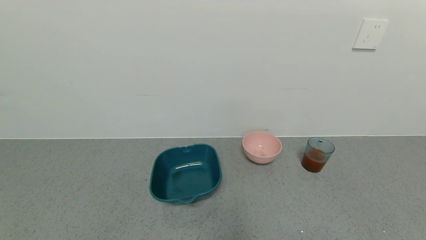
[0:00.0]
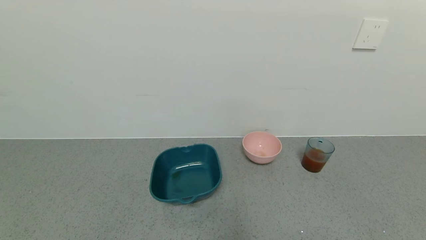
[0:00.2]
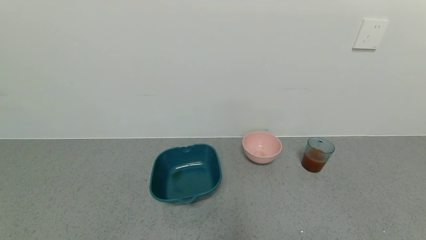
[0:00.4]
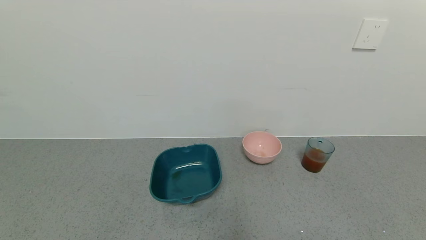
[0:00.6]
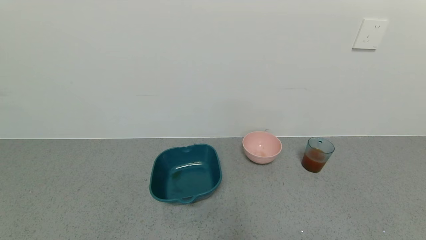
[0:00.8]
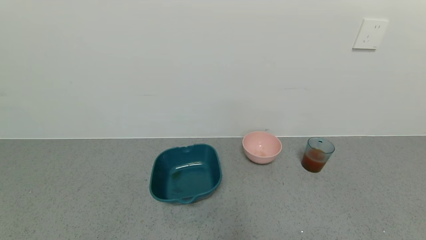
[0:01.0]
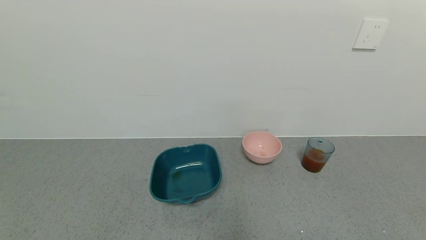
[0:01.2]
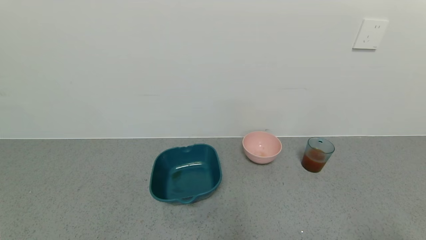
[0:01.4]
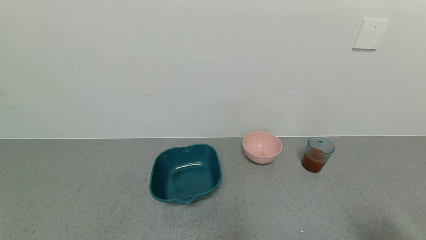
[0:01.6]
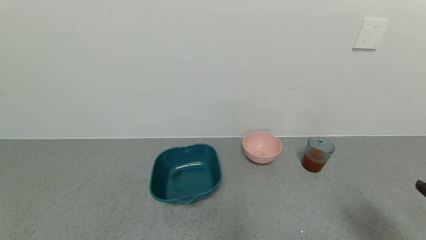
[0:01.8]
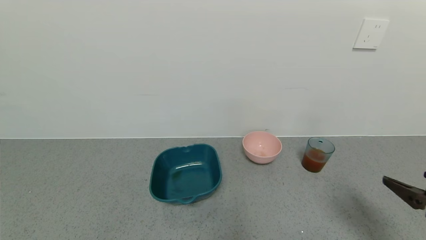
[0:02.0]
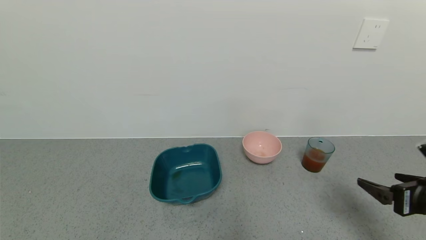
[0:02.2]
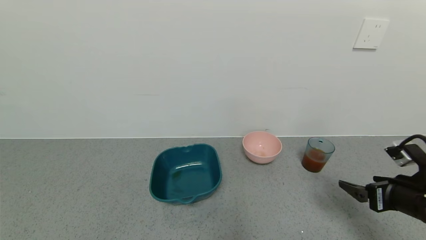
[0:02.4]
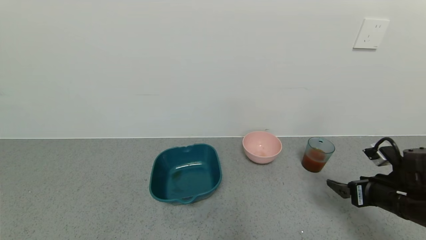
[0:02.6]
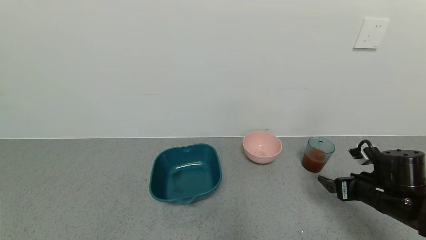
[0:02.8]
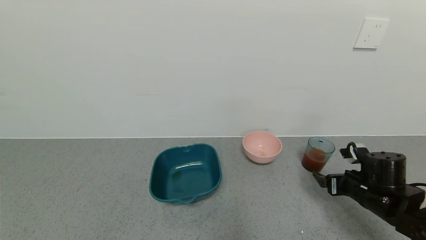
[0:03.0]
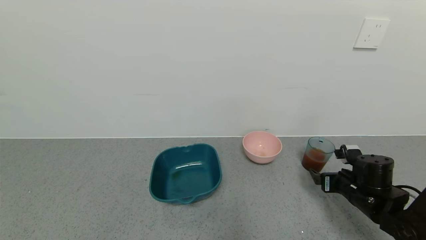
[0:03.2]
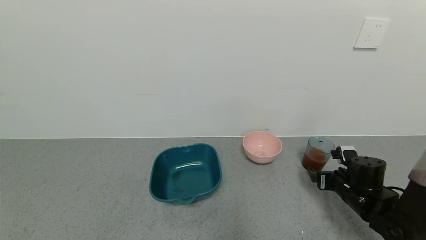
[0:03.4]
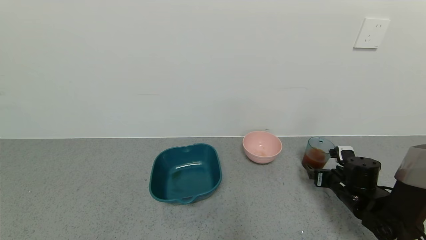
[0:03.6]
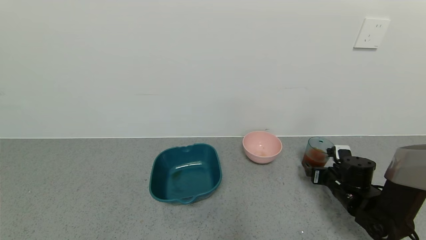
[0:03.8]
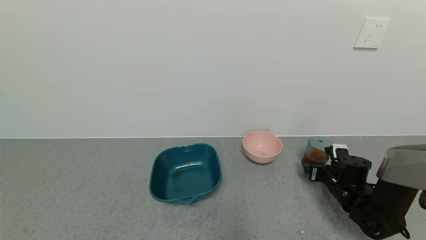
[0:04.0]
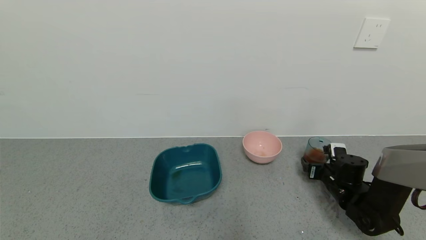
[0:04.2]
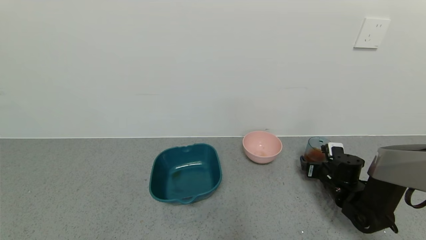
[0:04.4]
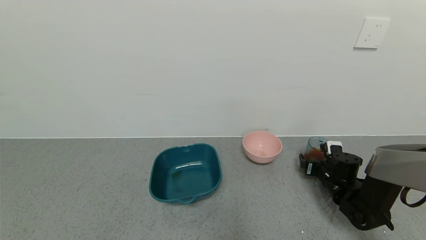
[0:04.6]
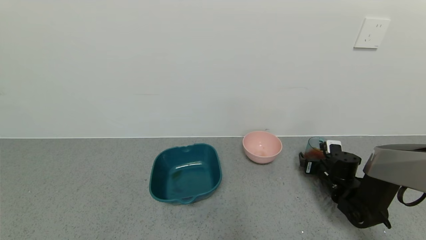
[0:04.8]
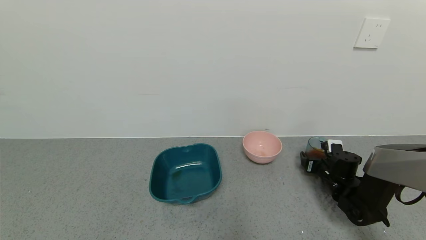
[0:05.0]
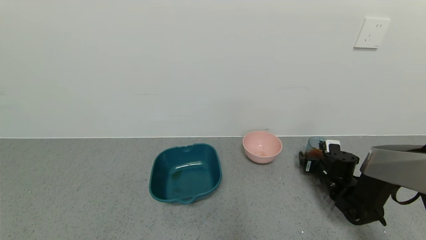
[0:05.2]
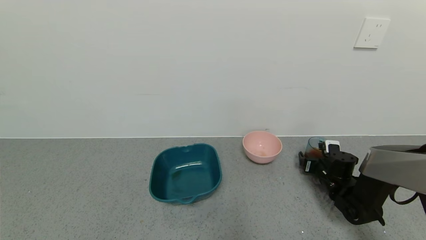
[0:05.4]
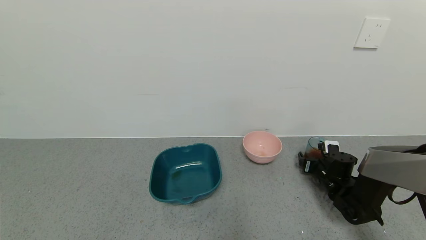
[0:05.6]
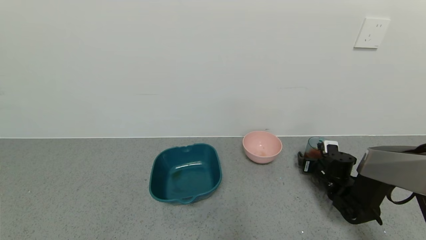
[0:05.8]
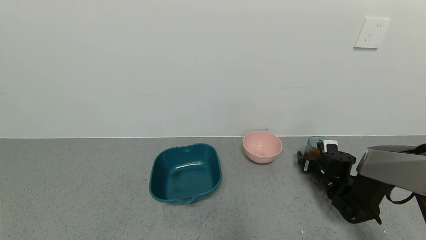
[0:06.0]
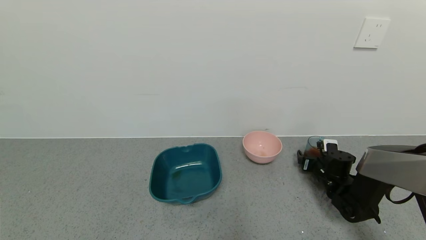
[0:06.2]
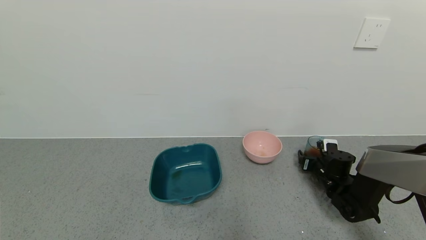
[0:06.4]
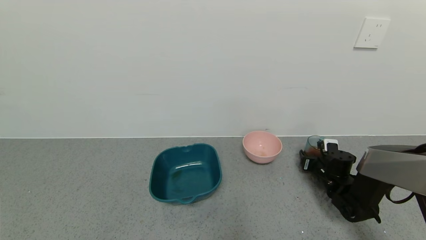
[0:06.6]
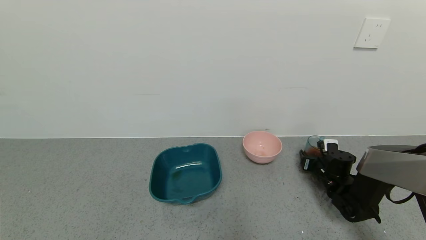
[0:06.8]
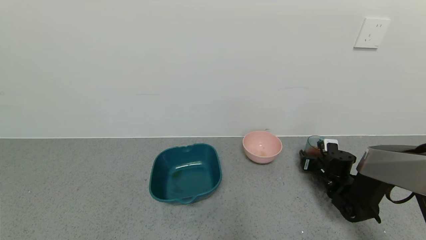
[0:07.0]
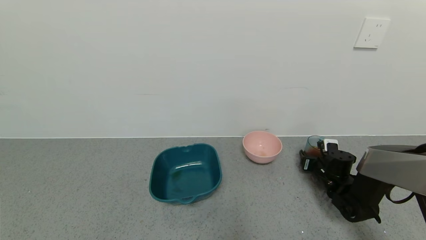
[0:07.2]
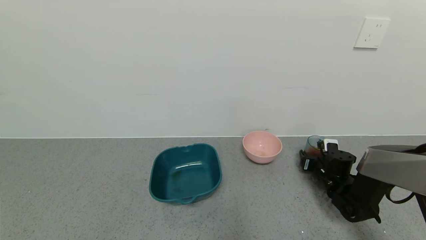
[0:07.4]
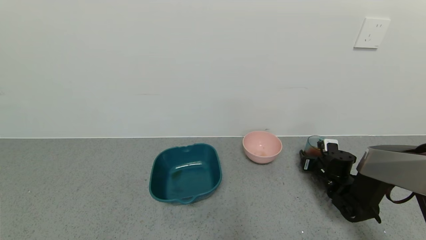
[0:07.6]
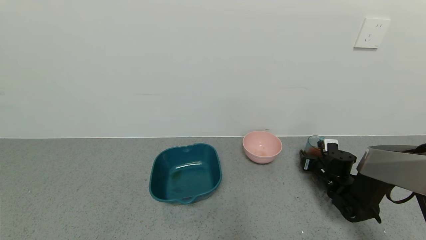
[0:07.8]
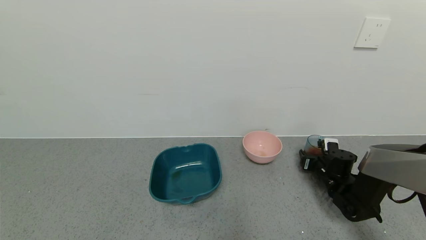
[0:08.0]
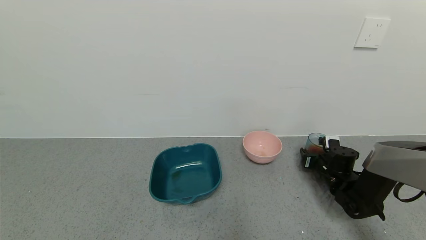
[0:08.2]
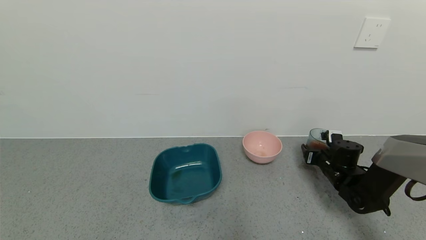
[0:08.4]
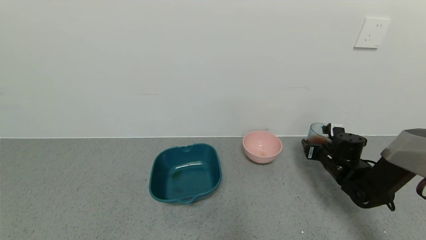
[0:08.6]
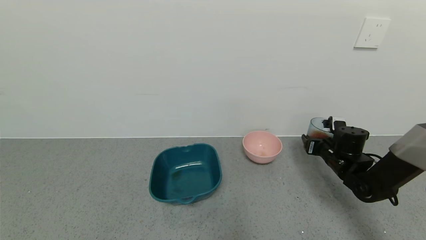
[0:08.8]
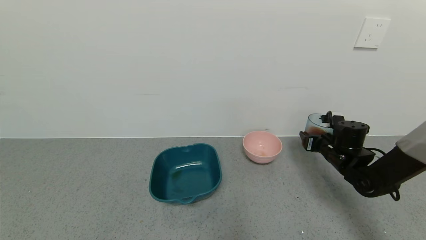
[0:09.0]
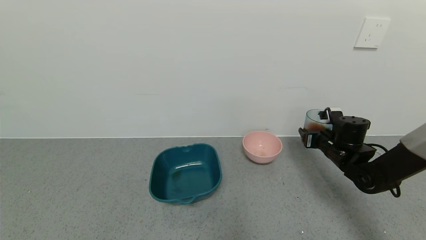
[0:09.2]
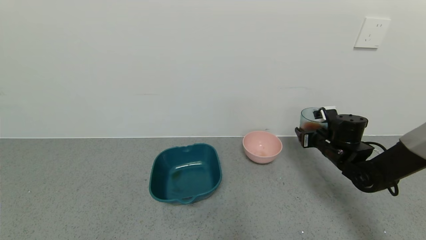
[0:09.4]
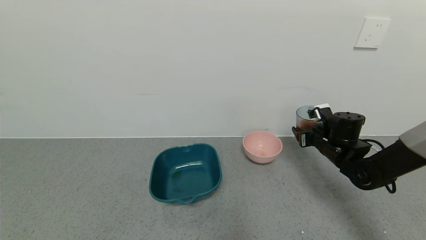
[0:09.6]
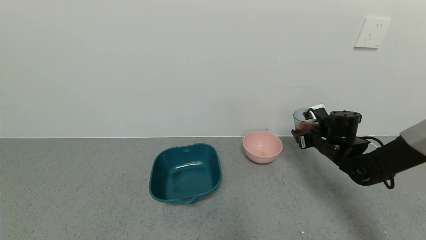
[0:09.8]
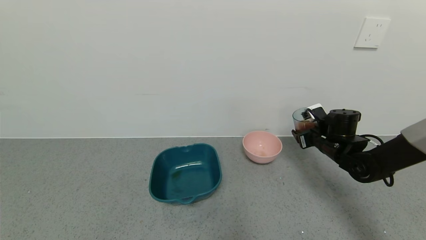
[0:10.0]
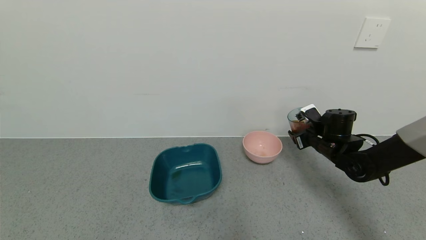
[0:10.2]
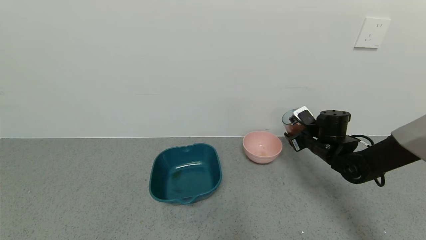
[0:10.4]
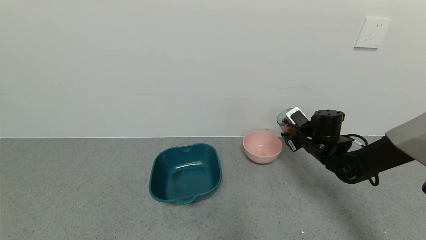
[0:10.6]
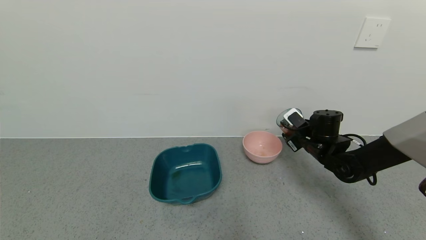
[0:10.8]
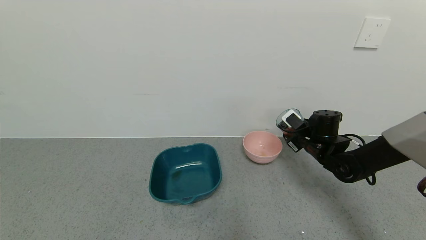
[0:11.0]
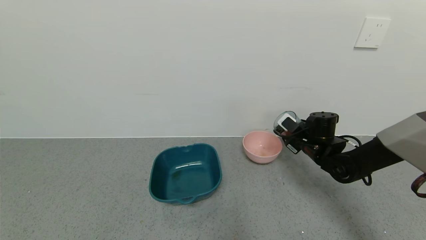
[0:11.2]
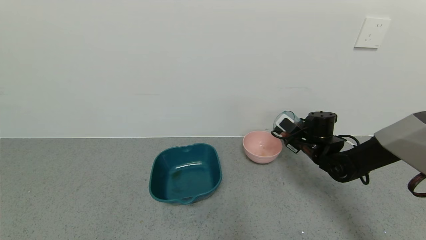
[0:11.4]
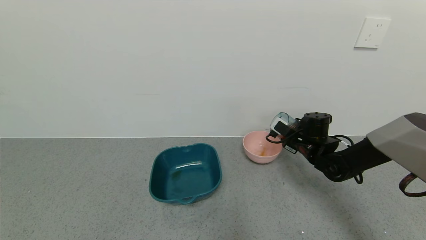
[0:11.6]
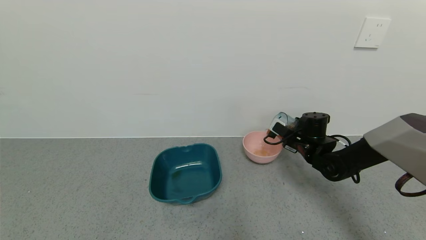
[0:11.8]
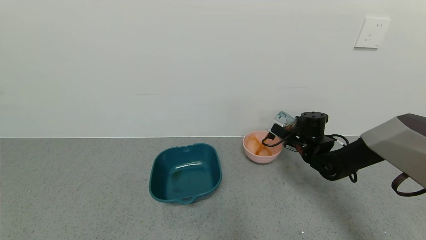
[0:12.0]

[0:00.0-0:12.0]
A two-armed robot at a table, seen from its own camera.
Task of the whole recording: use a gripper to pick up the cup and pour the liquid into a bowl or tray.
Step, 0:05.6 to 0:10.2: Pick up blue cup filled with tea with right gripper.
0:01.6 to 0:03.0: The right gripper heads forward and downward, covering roughly 25 cm.
0:03.0 to 0:04.4: The right gripper travels forward and downward by some 10 cm.
0:04.4 to 0:06.0: The grippers stay close to where they were, moving slightly.
0:07.6 to 0:09.0: The right gripper moves upward, about 10 cm.
0:09.0 to 0:10.4: The right gripper shifts by approximately 5 cm.

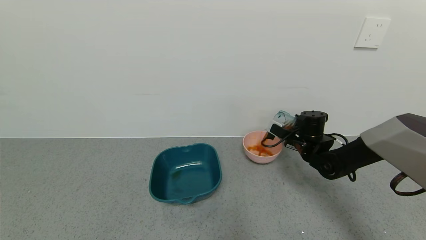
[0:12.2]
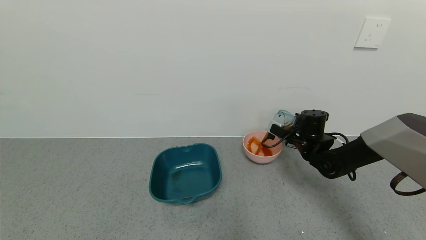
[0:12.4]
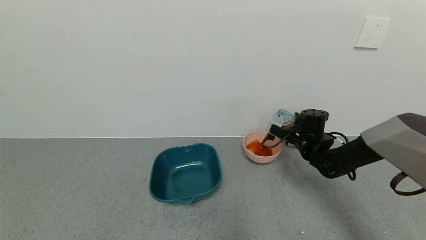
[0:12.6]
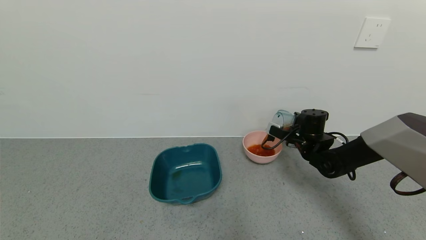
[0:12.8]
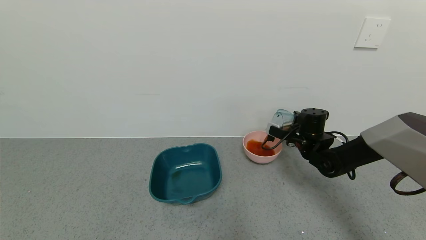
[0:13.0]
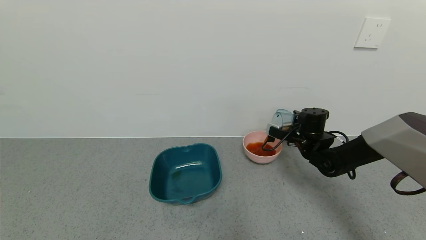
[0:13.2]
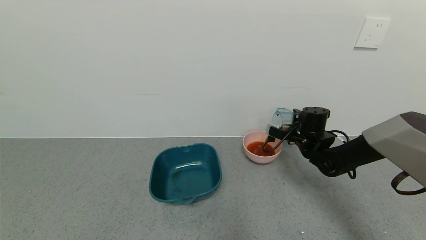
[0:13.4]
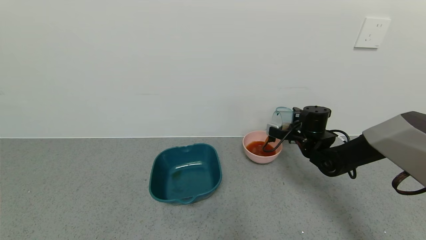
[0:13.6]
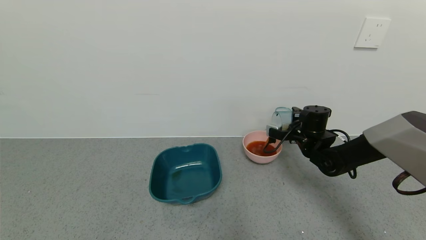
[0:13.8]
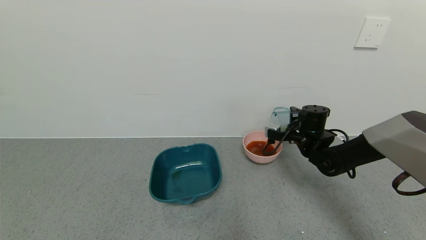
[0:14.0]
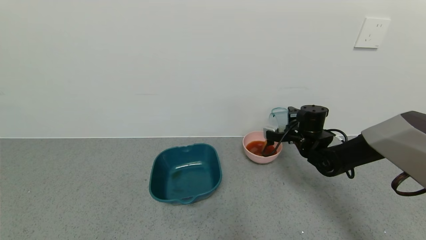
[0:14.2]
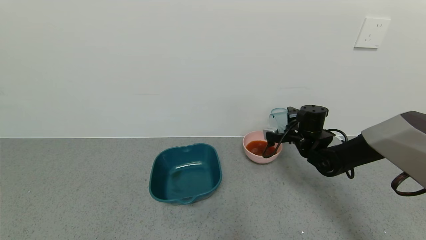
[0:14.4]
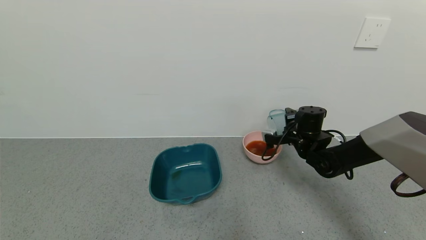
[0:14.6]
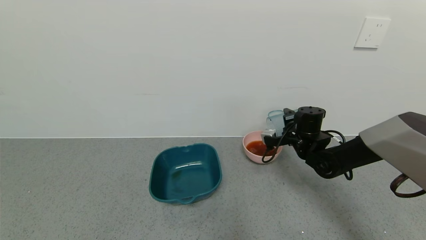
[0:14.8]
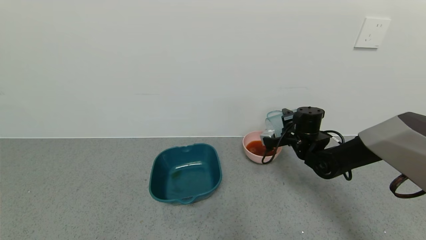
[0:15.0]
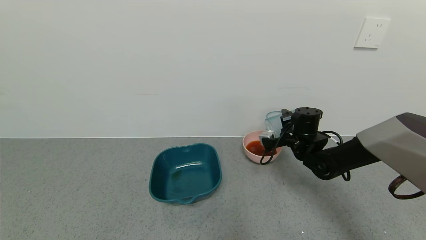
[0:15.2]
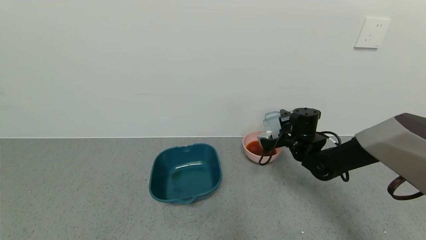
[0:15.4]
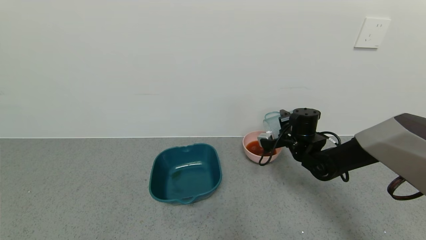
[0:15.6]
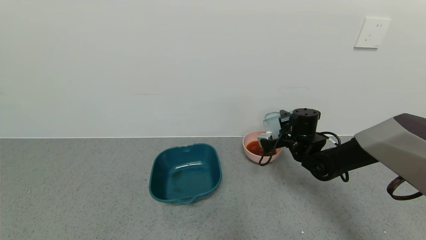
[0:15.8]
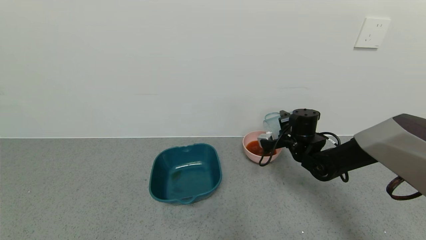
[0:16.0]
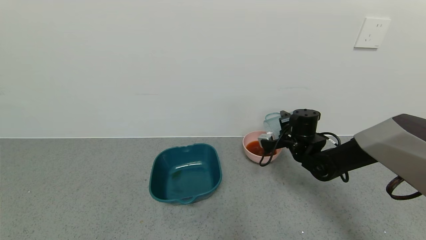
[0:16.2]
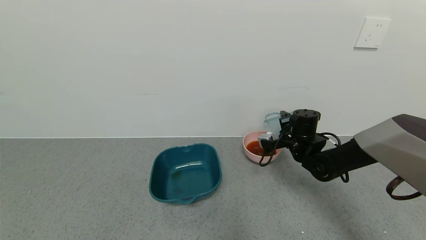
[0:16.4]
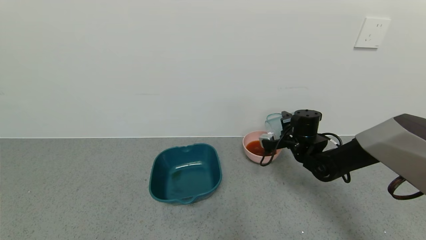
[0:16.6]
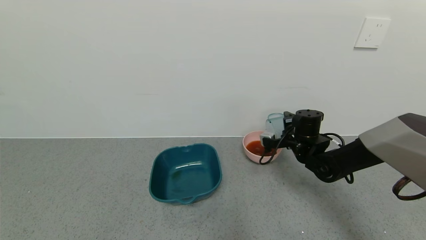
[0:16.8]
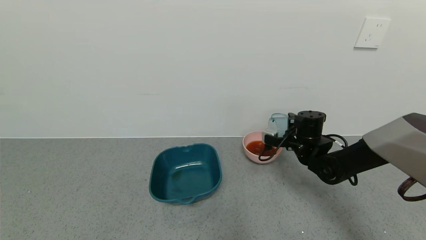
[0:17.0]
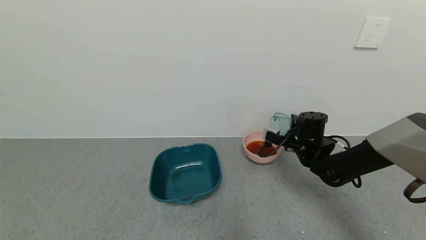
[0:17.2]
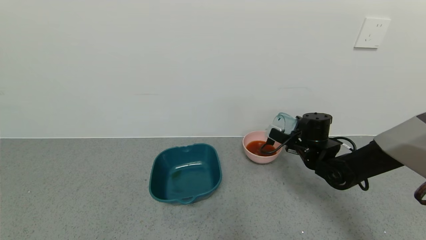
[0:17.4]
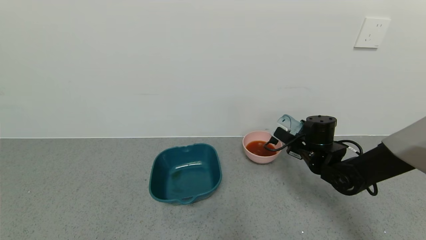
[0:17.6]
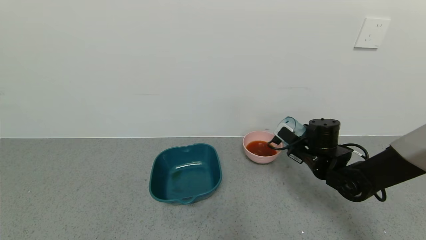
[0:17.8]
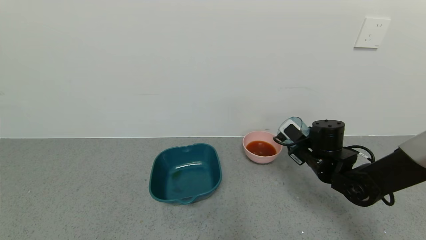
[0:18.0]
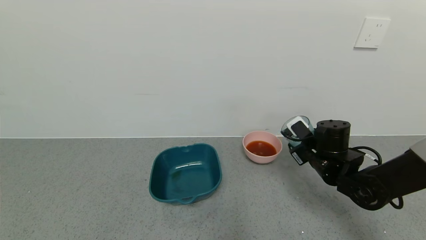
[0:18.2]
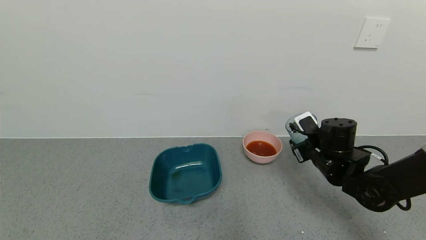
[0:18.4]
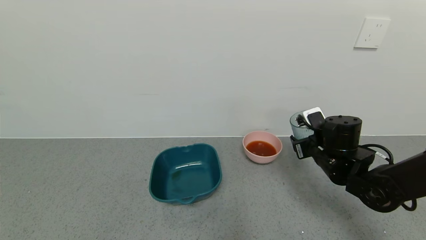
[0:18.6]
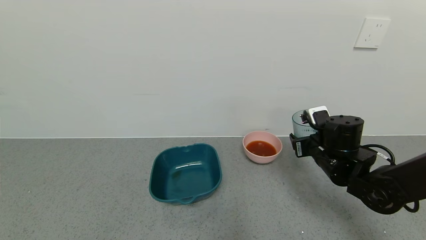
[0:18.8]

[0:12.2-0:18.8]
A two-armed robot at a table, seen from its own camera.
Task of the whole recording: use a gripper to pick up the cup and pour the liquid into a bowl or tray.
Step, 0:12.2 to 0:16.4: Pour the tea into the pink bowl with right gripper.
0:13.8 to 0:15.4: The grippers make only small movements.
0:17.2 to 0:18.8: The right gripper travels backward by approximately 10 cm.
